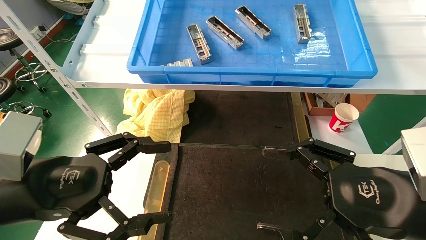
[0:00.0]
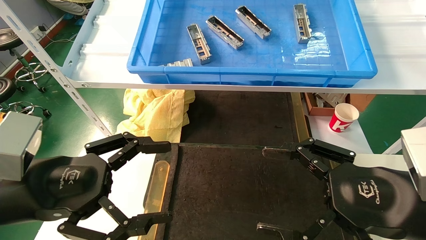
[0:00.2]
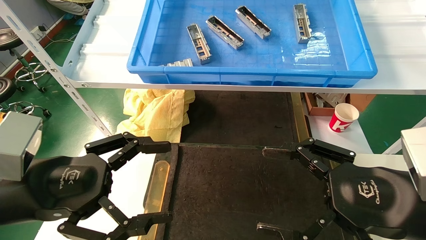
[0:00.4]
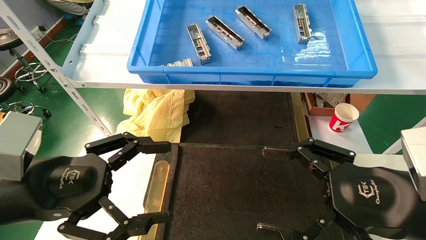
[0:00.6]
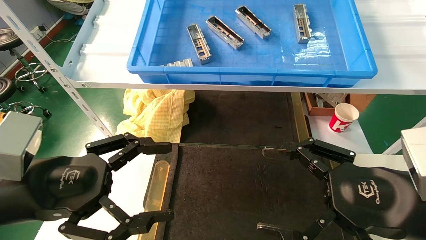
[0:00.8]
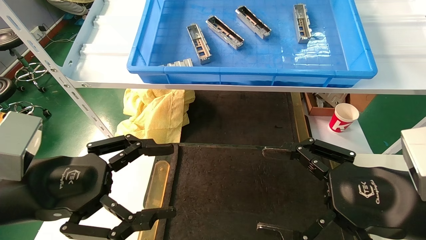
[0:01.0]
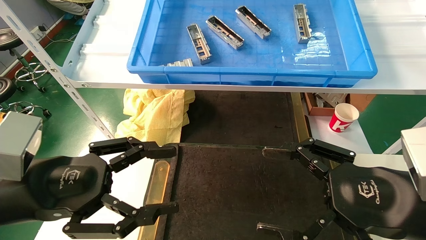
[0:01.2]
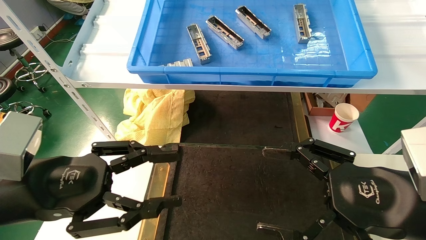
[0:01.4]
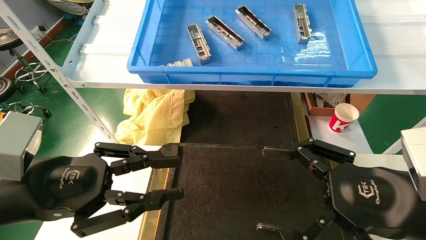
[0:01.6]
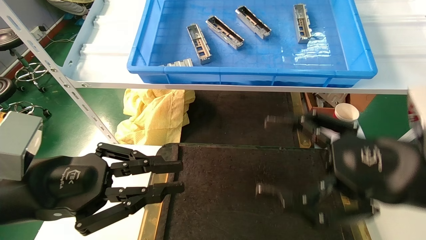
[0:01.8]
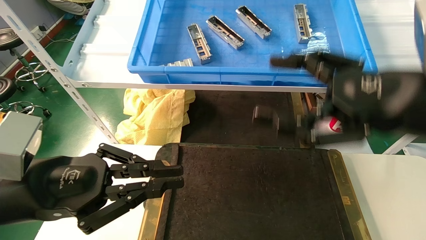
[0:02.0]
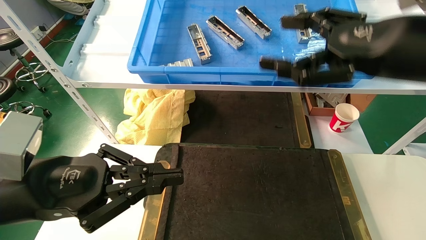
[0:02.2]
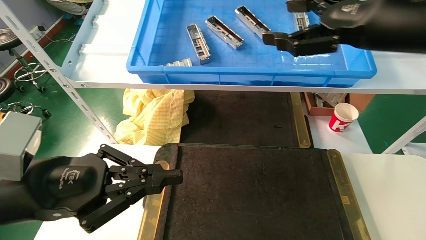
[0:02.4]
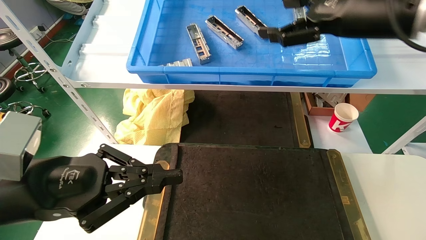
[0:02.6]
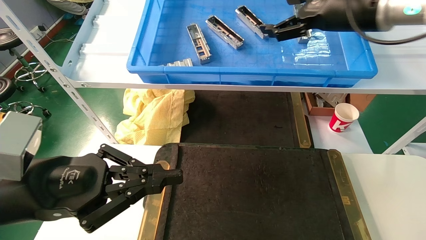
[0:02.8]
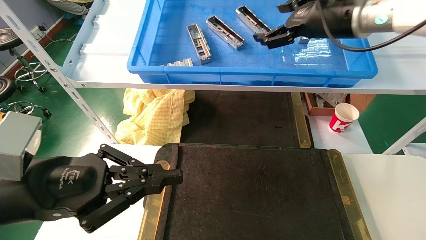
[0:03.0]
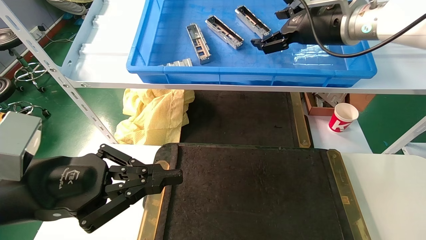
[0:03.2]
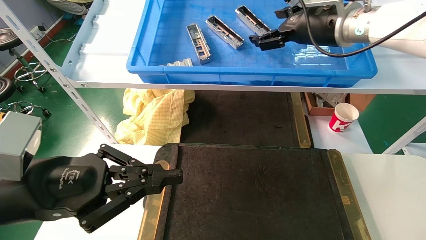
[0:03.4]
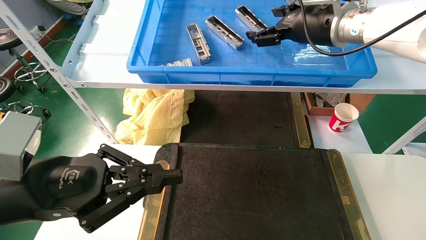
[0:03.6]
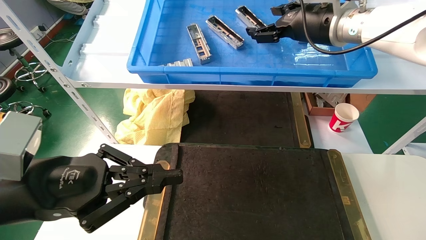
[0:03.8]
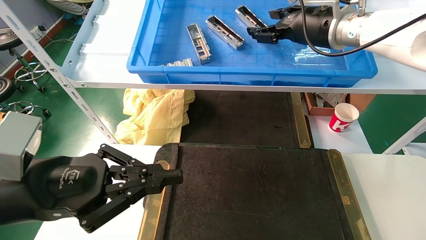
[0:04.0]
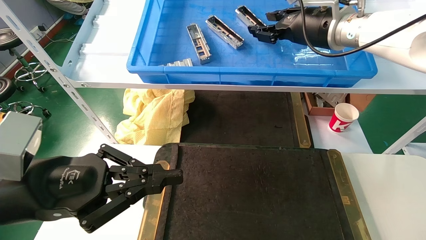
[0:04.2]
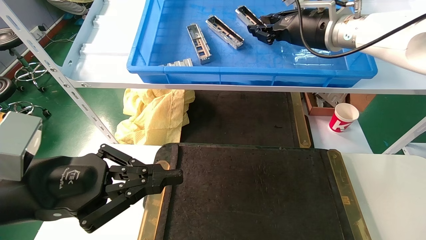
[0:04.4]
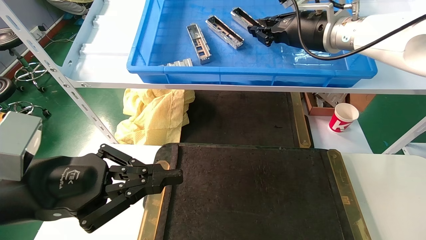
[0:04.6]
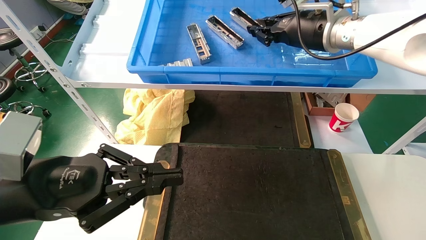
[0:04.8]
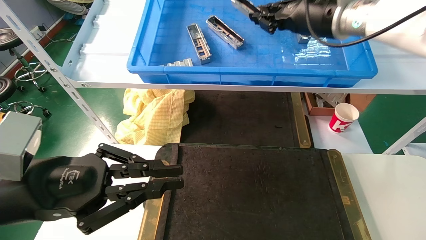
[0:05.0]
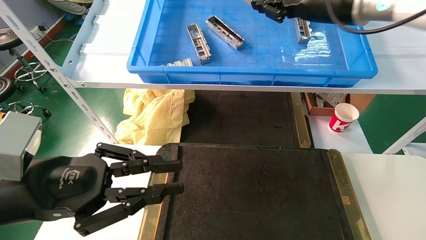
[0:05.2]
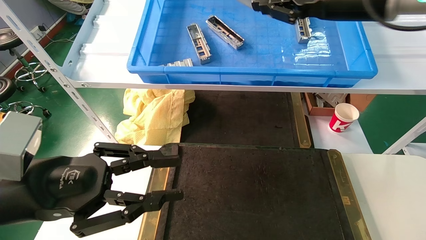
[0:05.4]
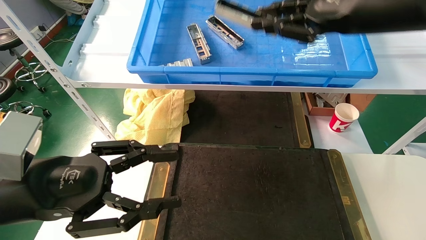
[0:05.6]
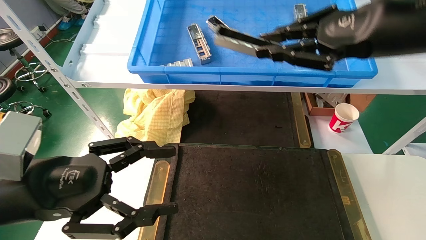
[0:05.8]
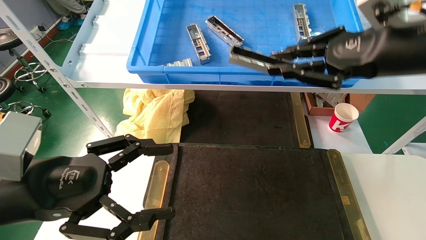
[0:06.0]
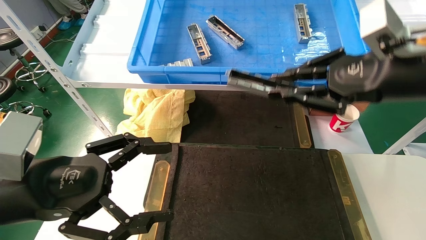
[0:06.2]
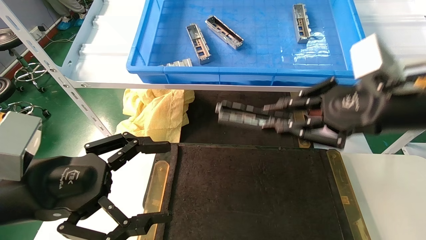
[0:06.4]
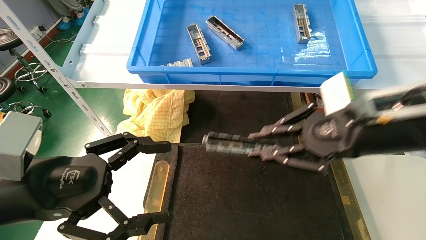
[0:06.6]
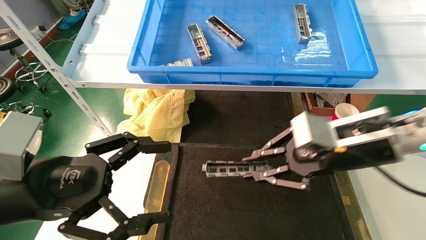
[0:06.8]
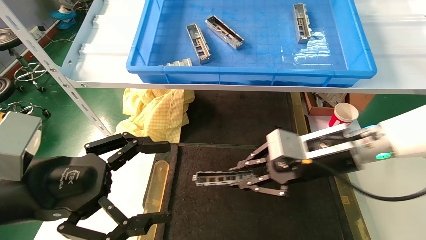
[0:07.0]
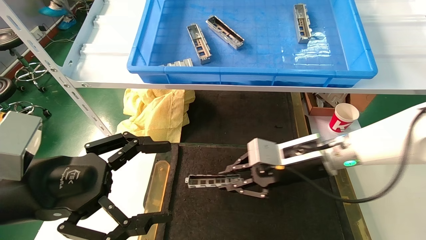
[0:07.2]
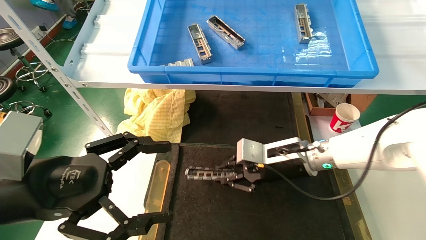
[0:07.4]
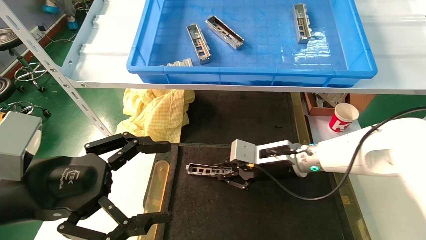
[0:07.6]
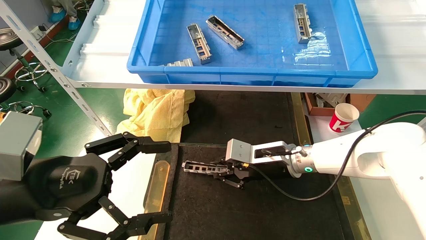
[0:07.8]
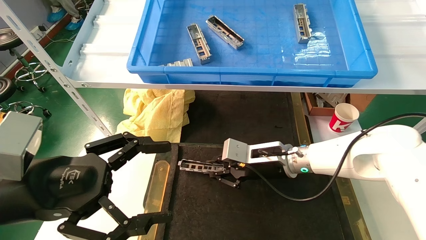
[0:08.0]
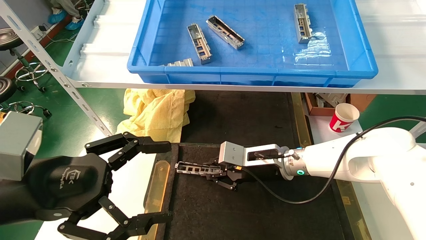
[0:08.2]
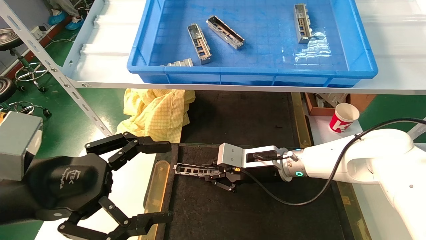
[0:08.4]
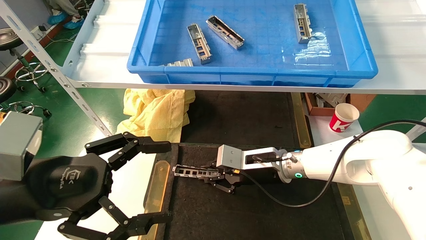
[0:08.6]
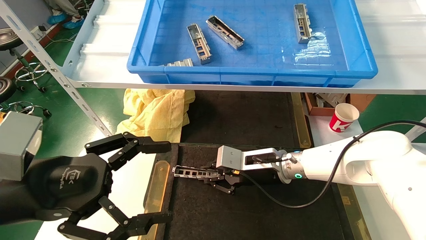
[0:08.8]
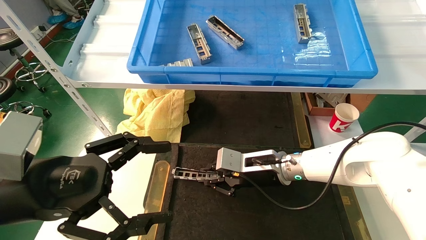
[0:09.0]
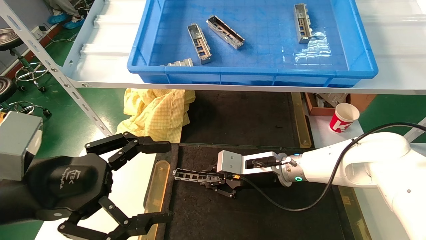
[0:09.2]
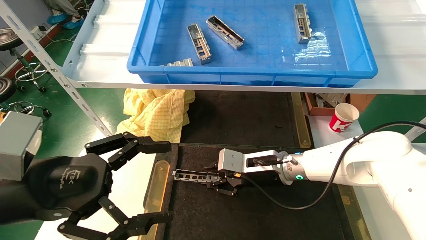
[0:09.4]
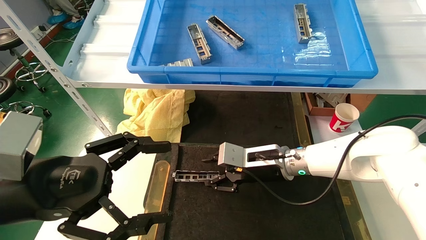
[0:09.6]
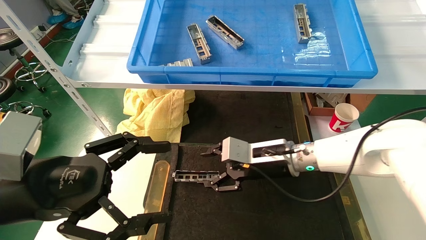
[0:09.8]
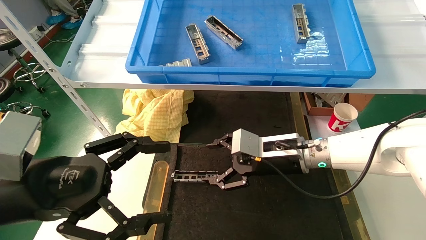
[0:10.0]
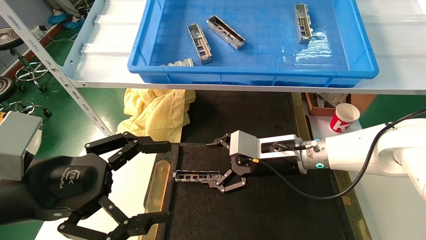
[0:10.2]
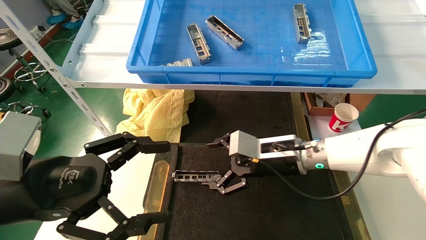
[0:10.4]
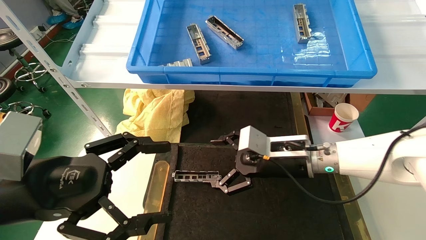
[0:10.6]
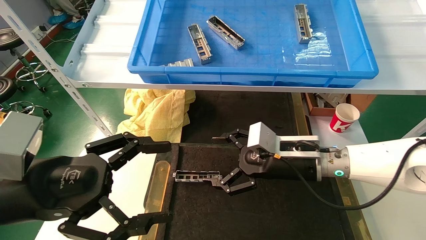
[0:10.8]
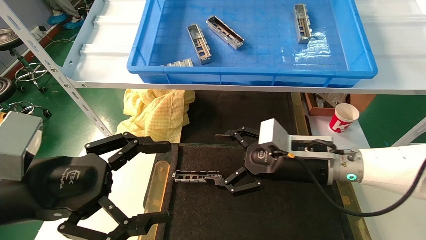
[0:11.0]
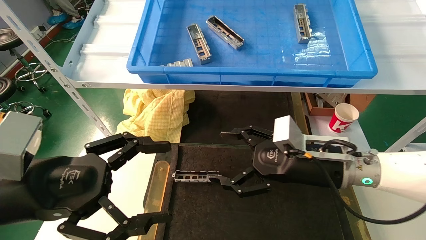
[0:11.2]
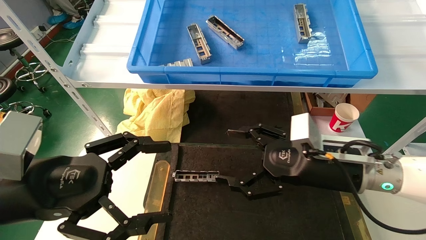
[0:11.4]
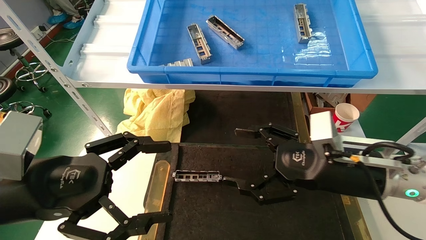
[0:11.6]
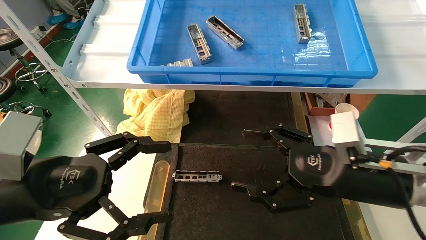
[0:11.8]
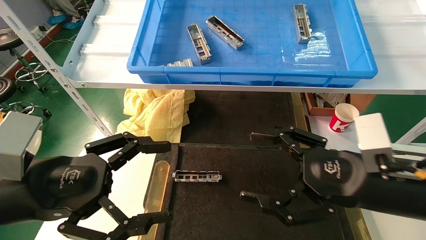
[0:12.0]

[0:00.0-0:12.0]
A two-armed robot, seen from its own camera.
Task of the whole recording: grasp the part and place them on the black container.
Step, 0:02.0 to 0:04.6: Pick up and lift the front USB bracket from the feeding area.
Step, 0:04.8 to 0:09.6: Place the front USB bracket into the box.
0:00.0 to 0:01.6: The left gripper closes.
0:01.6 to 0:03.0: The right gripper moves forward and upward, roughly 30 cm. The left gripper closes up.
0:03.0 to 0:04.4: The right gripper closes its fingers.
0:04.4 to 0:06.0: The right gripper is displaced backward and to the right by about 15 cm, and closes up. The left gripper opens.
0:06.0 to 0:07.6: The right gripper heads downward, to the left and forward, covering about 30 cm.
0:07.6 to 0:09.0: There are only small adjustments of the grippers.
0:09.0 to 0:10.4: The right gripper moves roughly 5 cm, and opens.
0:10.4 to 0:12.0: The right gripper shifts roughly 20 cm backward and to the right.

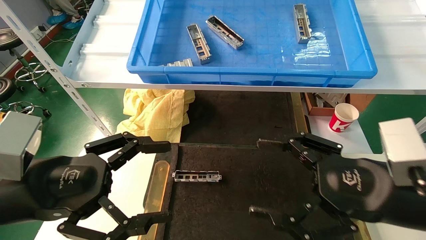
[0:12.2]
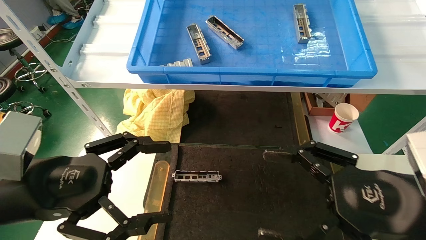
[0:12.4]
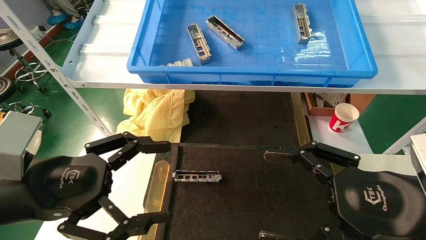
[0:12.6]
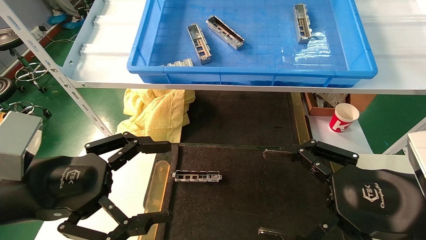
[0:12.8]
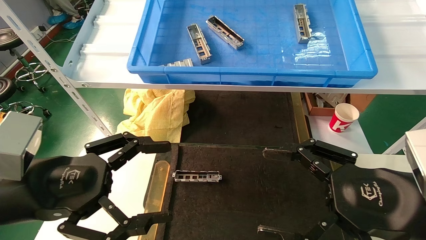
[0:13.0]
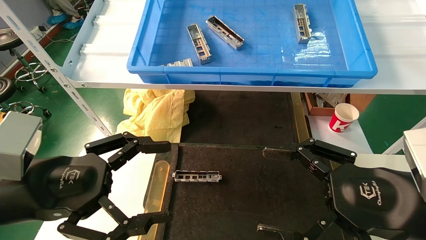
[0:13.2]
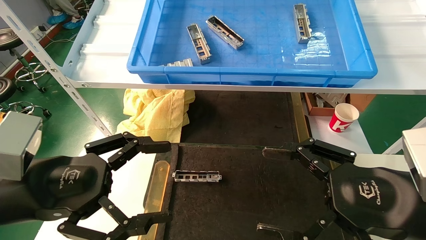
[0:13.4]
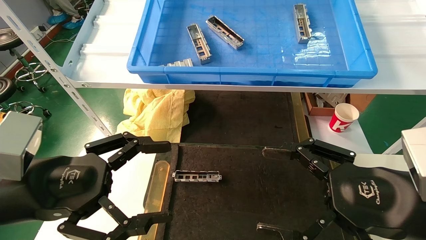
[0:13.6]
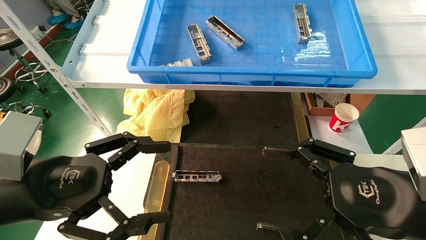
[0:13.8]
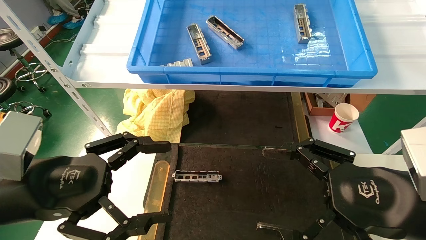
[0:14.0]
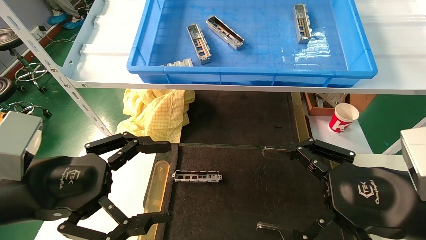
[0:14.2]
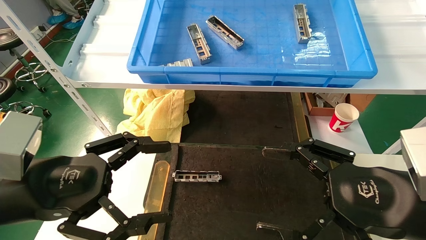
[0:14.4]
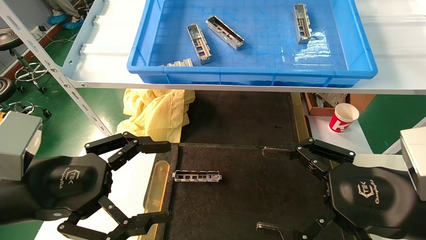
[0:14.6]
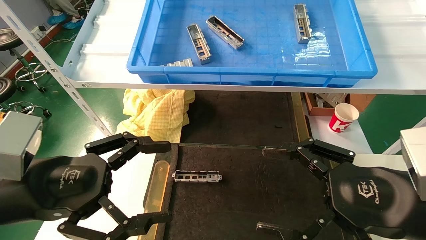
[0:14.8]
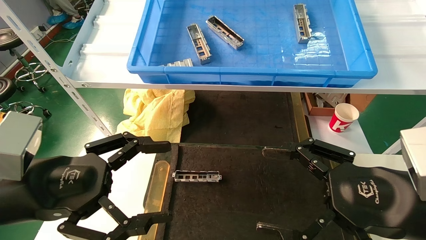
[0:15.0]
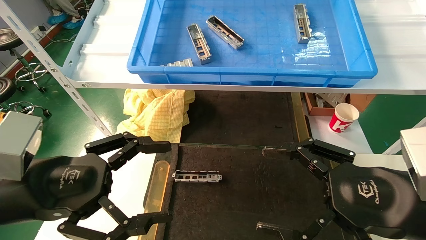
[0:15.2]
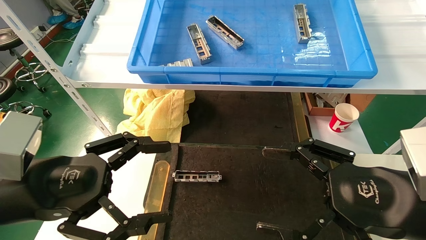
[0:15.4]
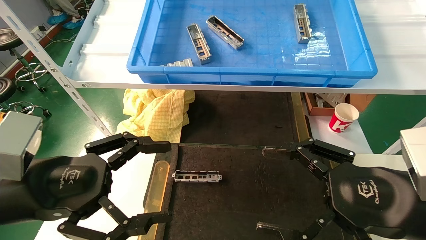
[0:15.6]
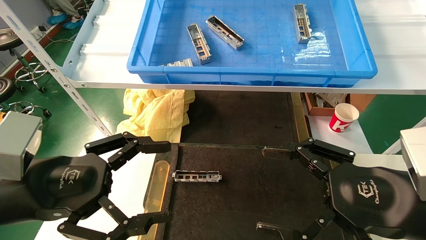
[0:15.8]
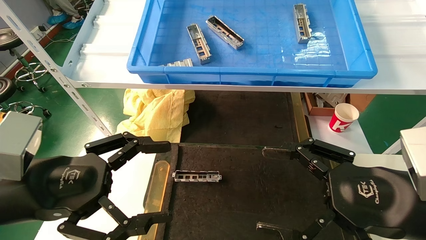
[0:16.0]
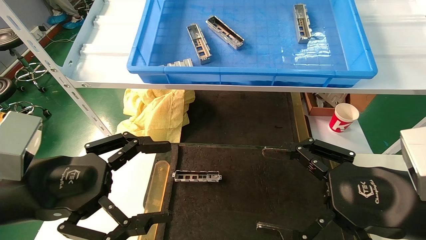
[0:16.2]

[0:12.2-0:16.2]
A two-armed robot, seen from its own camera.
Task of the whole recording: grasp the part and place them on the black container.
0:12.2 to 0:13.6: The grippers make only small movements.
0:13.6 to 0:16.2: Both grippers stay put.

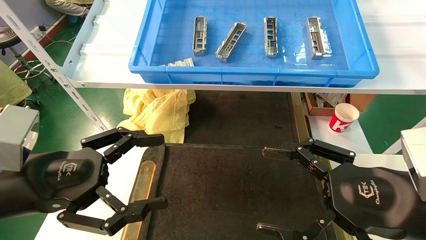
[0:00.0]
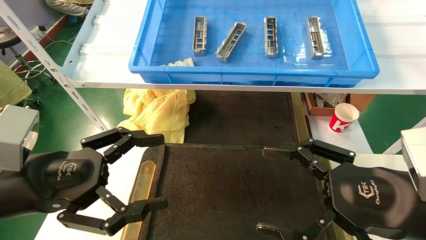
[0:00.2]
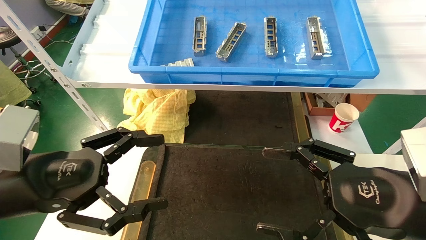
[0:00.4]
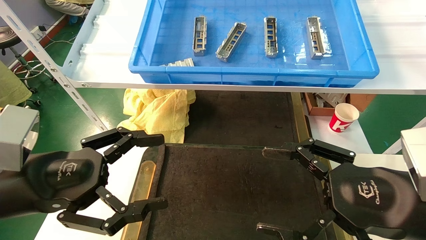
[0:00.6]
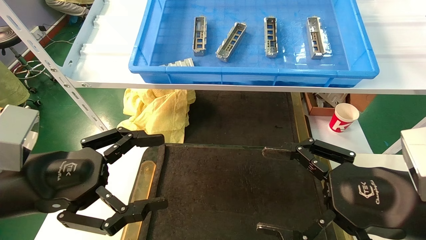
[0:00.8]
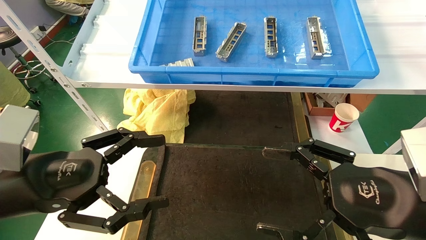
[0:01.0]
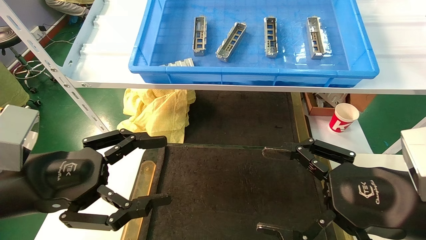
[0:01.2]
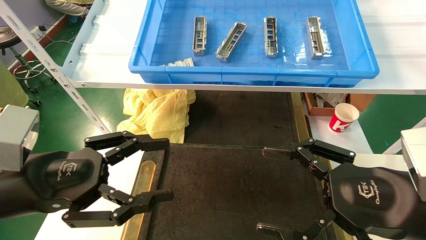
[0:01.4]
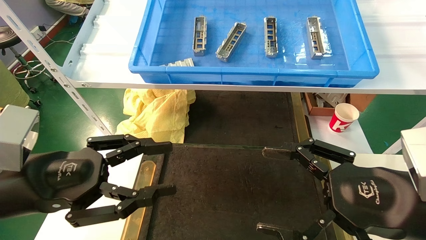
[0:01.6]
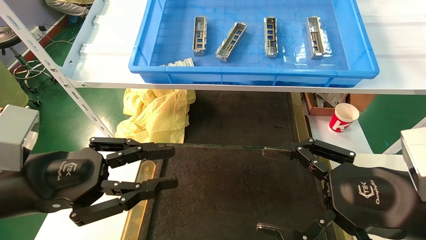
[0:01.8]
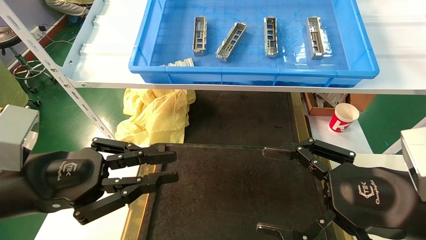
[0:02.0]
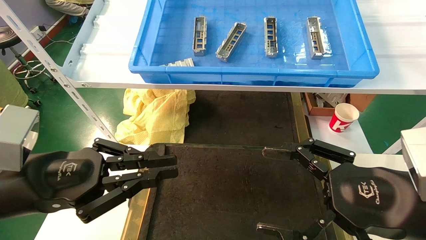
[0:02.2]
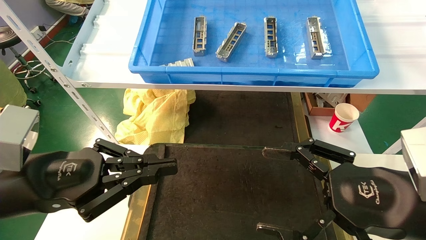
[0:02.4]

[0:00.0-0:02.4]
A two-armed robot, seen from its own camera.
Task of the whole recording: grasp the part and place them on the black container.
0:00.0 to 0:01.2: Neither gripper changes place.
0:01.2 to 0:02.4: The left gripper closes up.
